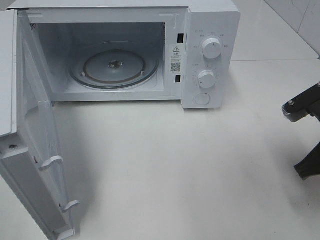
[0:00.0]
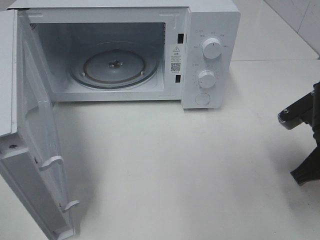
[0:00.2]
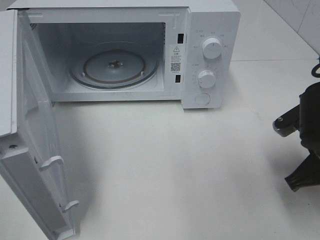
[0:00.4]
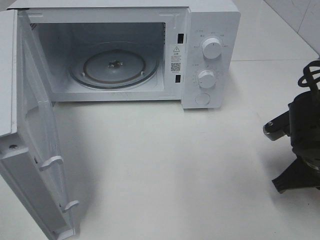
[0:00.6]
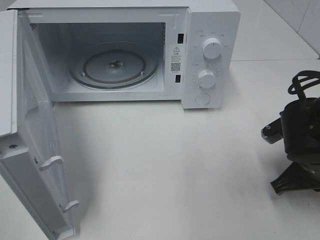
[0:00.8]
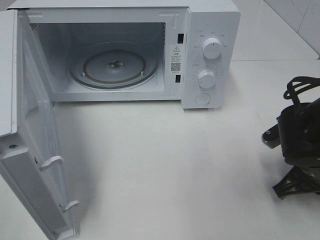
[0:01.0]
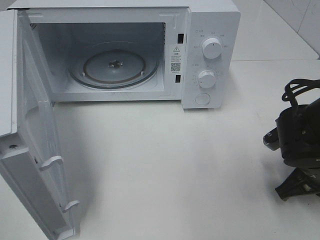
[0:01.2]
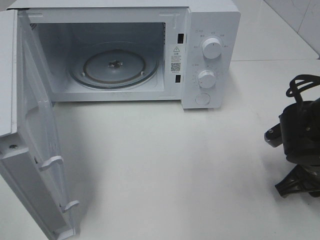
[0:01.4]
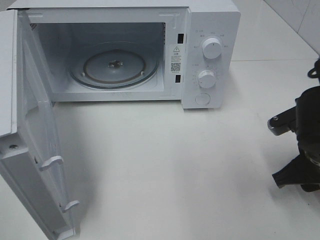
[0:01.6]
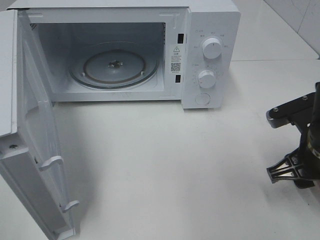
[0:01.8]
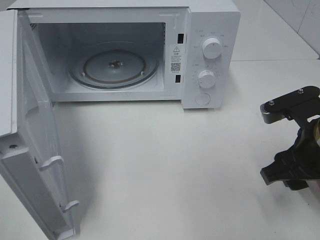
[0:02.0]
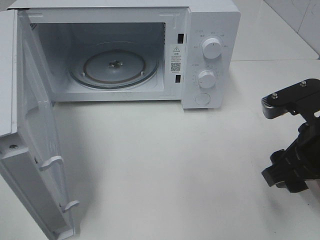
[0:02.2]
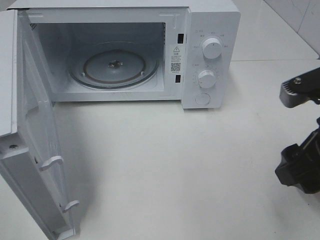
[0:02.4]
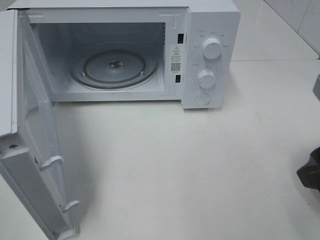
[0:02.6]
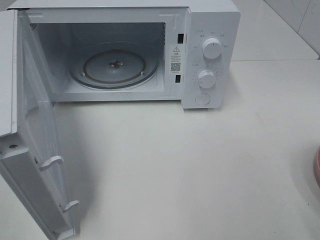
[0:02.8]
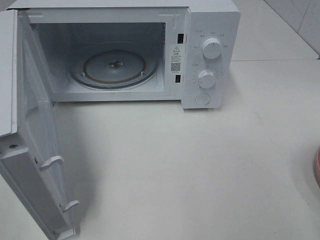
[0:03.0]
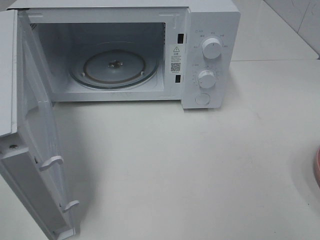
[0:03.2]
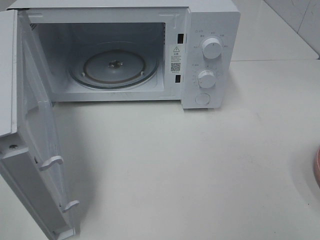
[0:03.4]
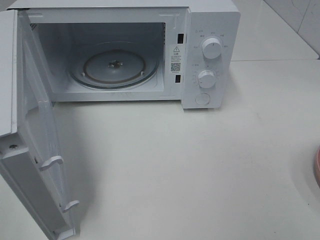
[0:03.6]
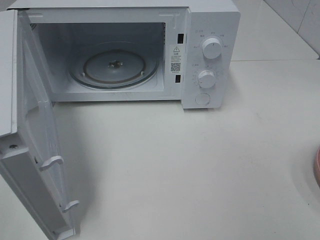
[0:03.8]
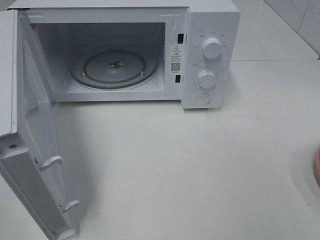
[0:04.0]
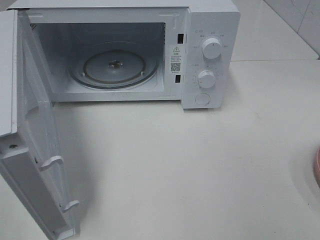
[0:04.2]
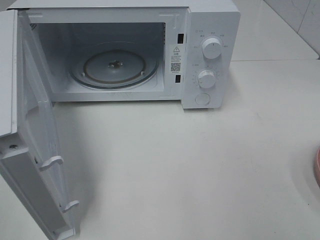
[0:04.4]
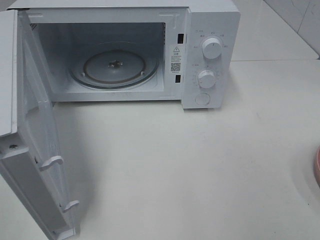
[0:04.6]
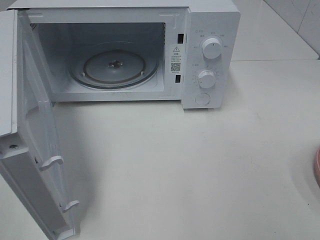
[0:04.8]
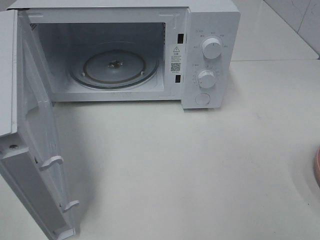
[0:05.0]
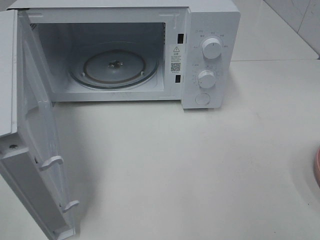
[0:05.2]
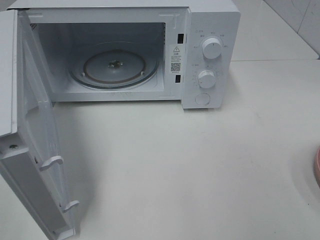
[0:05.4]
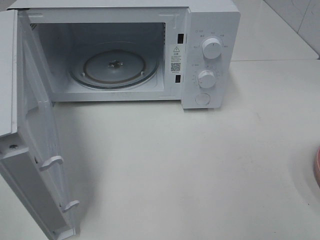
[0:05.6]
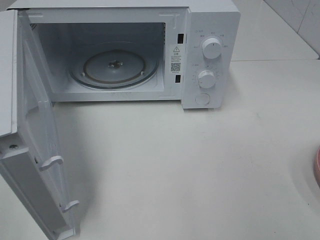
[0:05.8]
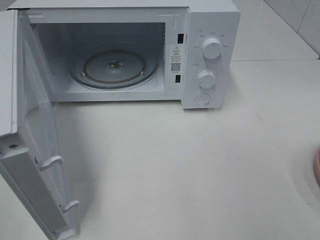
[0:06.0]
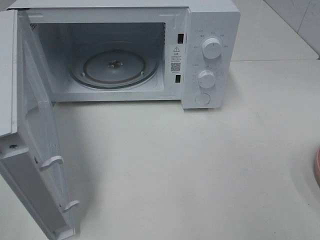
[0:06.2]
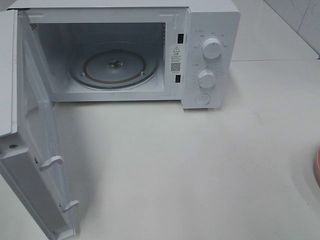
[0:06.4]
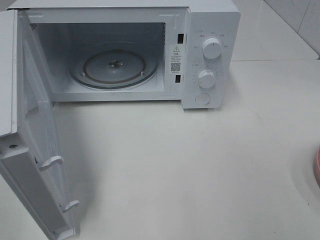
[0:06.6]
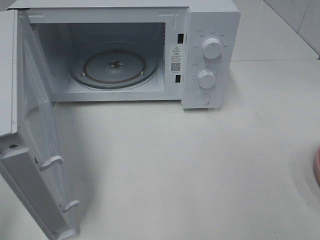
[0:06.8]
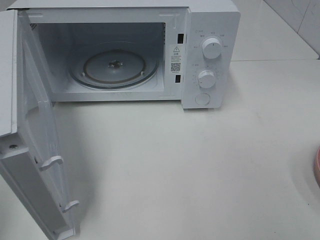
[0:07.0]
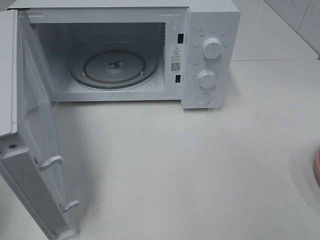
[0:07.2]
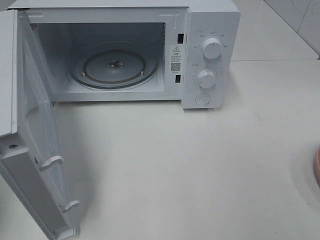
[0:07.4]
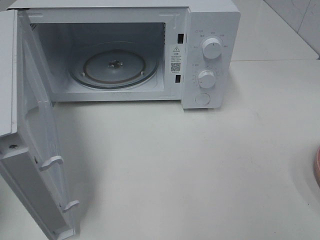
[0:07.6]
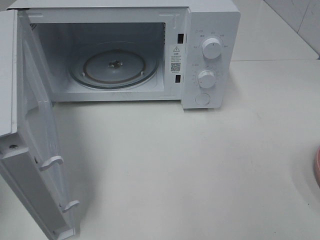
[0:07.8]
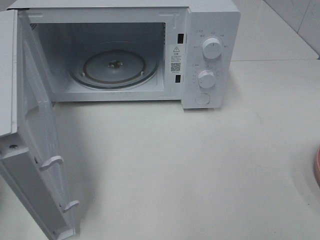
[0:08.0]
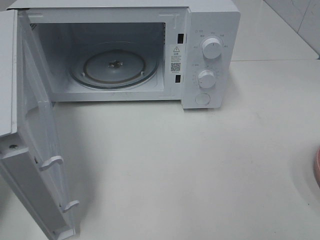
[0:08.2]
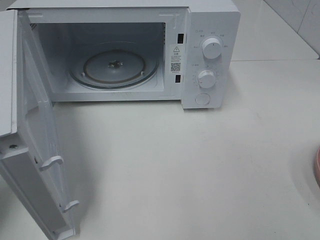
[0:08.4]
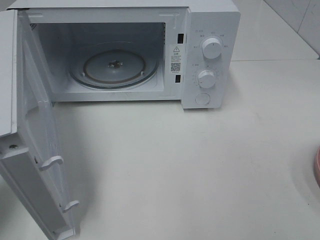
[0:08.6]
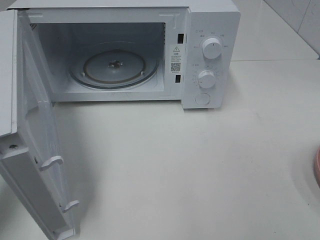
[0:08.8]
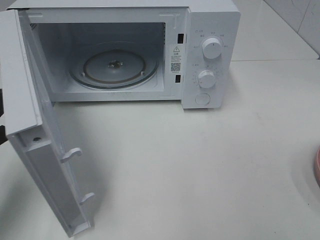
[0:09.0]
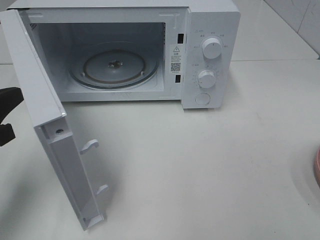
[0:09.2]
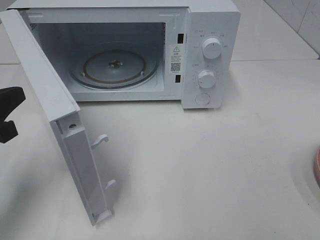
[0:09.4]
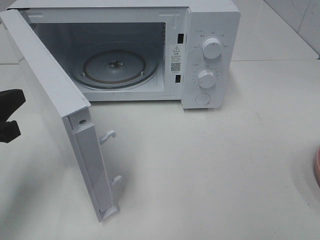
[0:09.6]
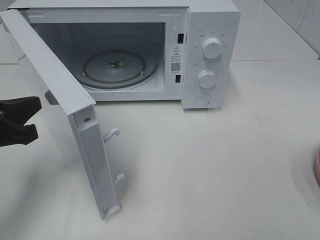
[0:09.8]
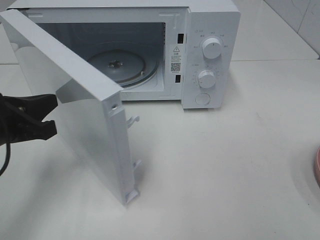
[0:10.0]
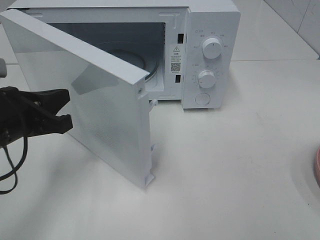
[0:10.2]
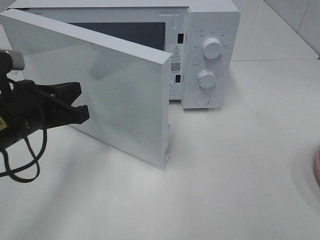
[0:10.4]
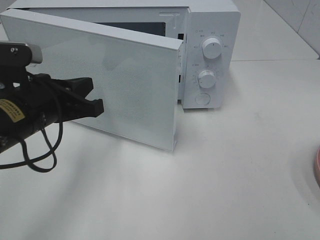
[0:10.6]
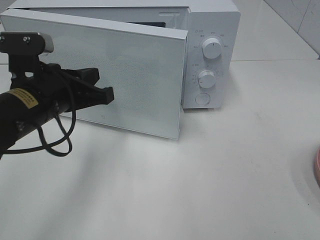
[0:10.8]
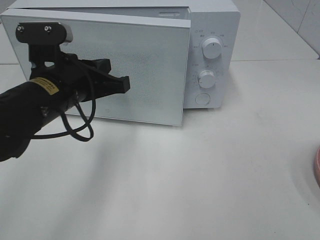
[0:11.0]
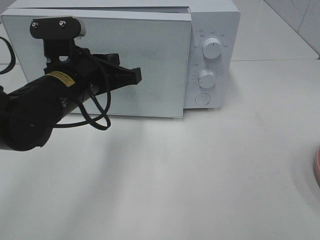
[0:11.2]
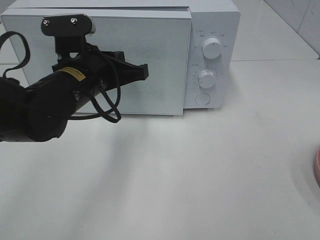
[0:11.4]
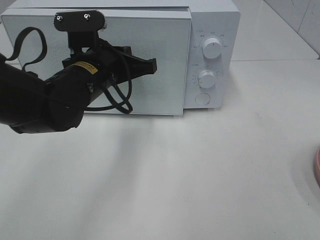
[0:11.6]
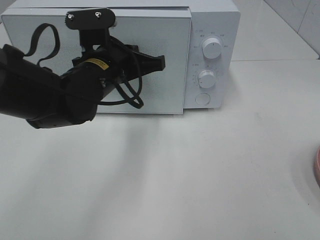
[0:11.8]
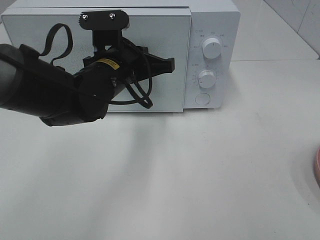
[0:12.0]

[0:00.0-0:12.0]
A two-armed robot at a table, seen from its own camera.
Task of the whole recording: Heat the burger.
0:00.0 to 0:01.6: The right gripper opens up.
0:01.6 to 0:03.0: The right gripper heads upward and backward, covering approximately 20 cm.
0:04.4 to 0:06.0: Neither gripper changes place.
0:07.6 to 0:09.0: The left gripper moves to the right and downward, approximately 10 cm.
0:09.0 to 0:10.4: The left gripper travels to the right by about 10 cm.
0:10.4 to 0:12.0: The left gripper travels to the right and forward by roughly 15 cm.

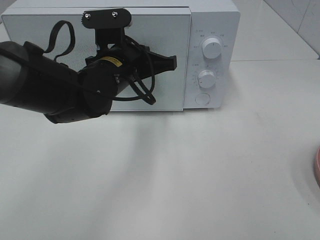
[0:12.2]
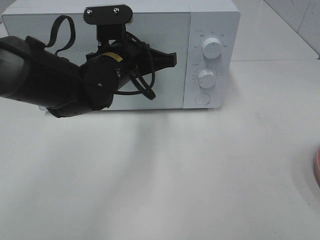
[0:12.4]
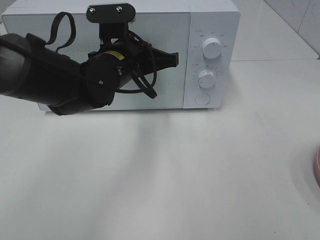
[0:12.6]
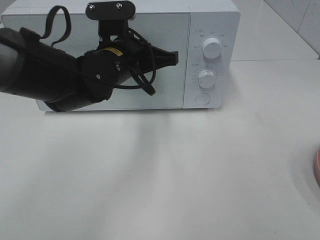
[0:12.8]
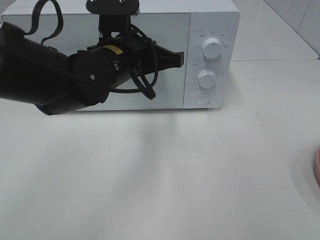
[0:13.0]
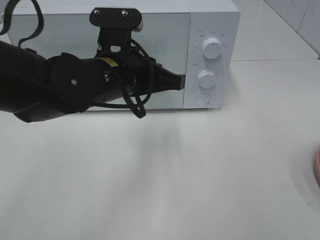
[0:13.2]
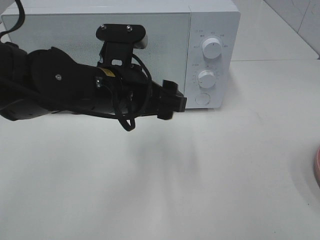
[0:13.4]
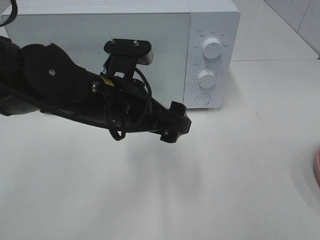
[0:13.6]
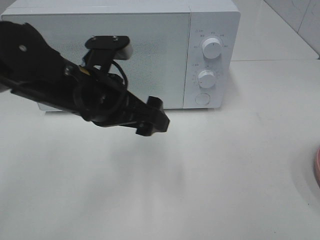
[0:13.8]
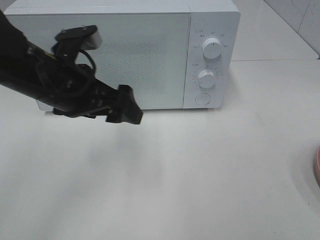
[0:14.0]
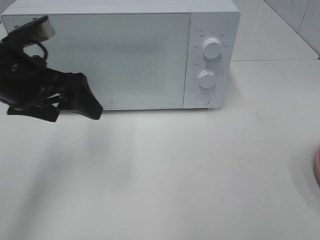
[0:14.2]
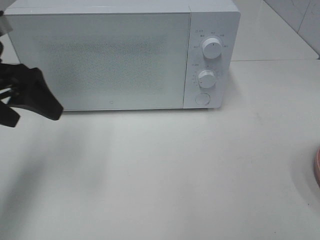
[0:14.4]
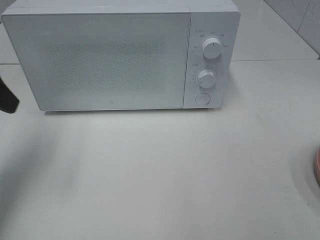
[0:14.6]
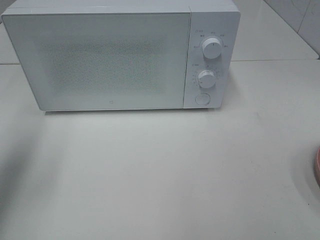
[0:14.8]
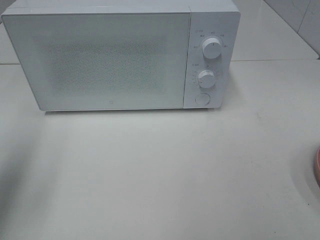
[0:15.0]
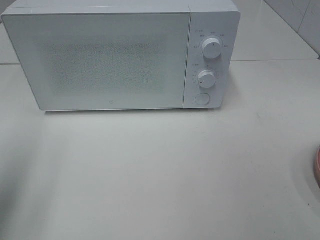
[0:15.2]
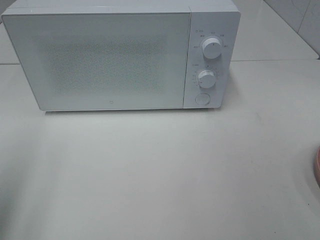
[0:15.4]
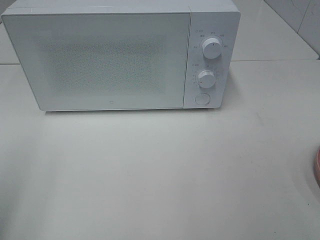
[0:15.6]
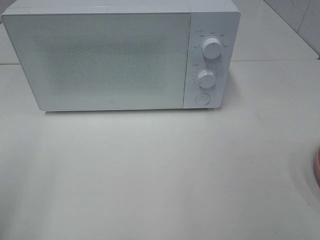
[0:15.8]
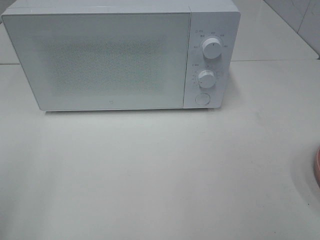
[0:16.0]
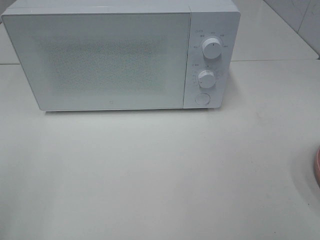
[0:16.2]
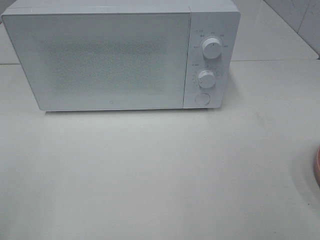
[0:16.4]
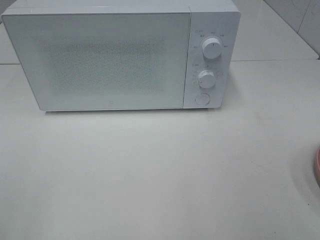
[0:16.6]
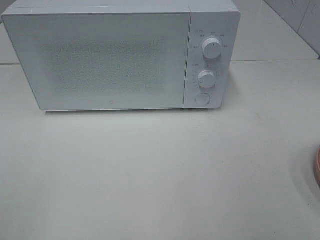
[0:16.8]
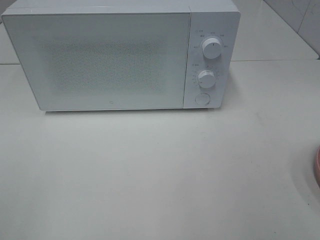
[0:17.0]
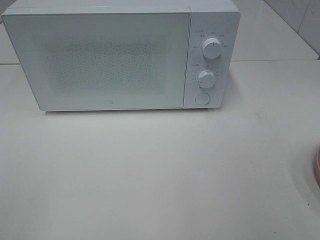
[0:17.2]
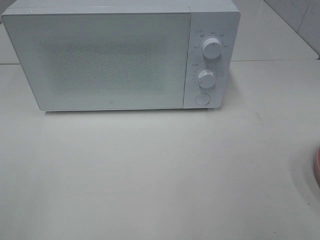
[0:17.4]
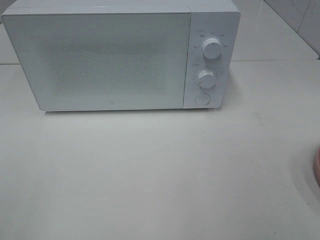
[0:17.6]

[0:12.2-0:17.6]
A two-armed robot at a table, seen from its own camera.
Task of the whole recording: Heat the burger.
0:12.2 to 0:13.6: The left gripper moves backward, about 10 cm, and opens its fingers.
0:13.6 to 0:15.0: The left gripper moves to the left, some 25 cm.
0:15.0 to 0:16.2: The left gripper moves backward, about 15 cm.
